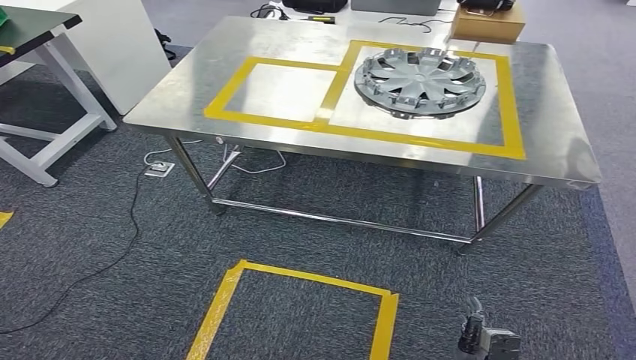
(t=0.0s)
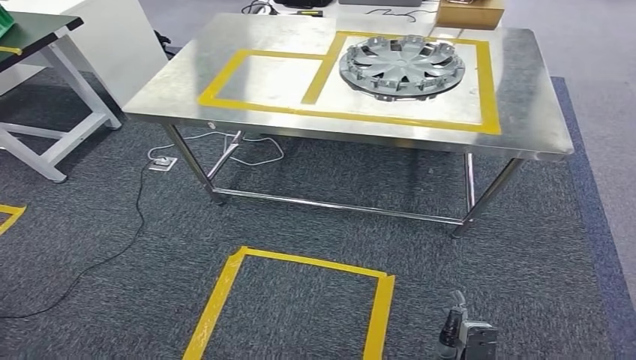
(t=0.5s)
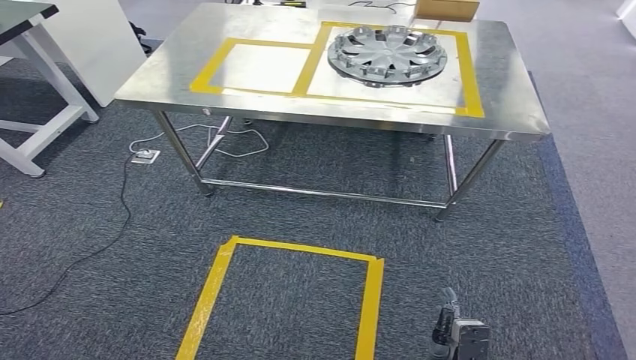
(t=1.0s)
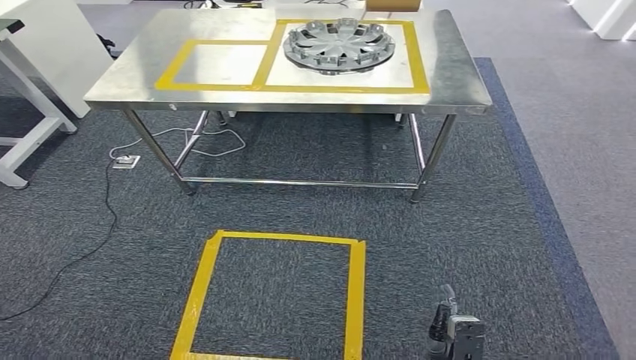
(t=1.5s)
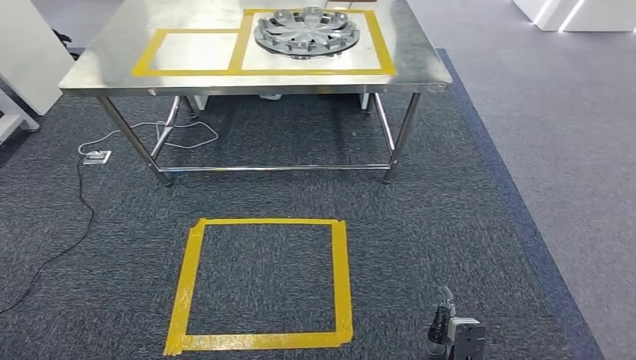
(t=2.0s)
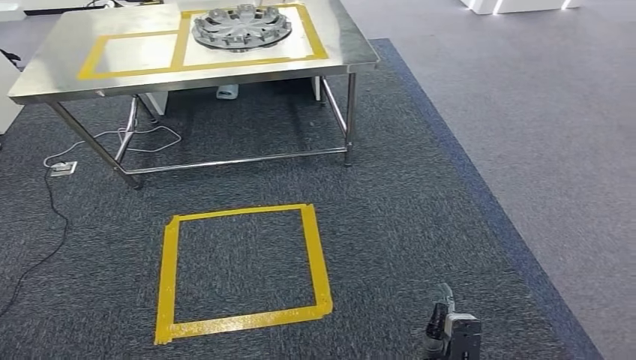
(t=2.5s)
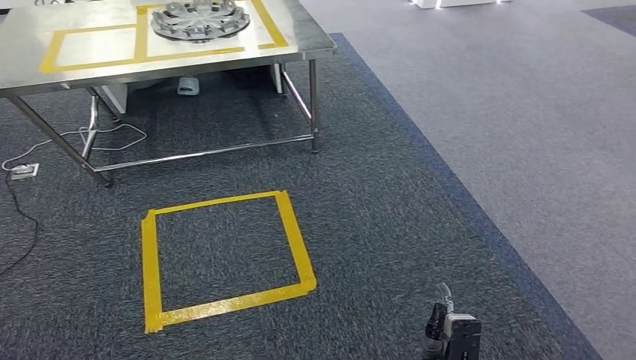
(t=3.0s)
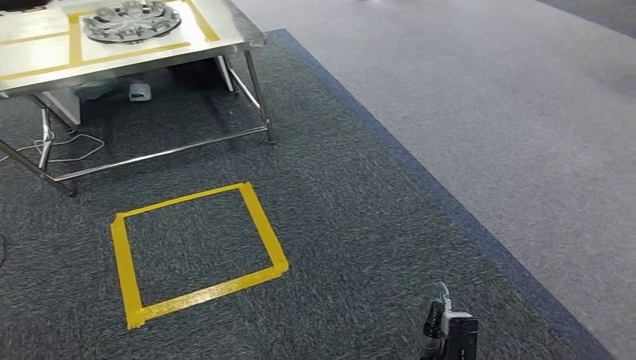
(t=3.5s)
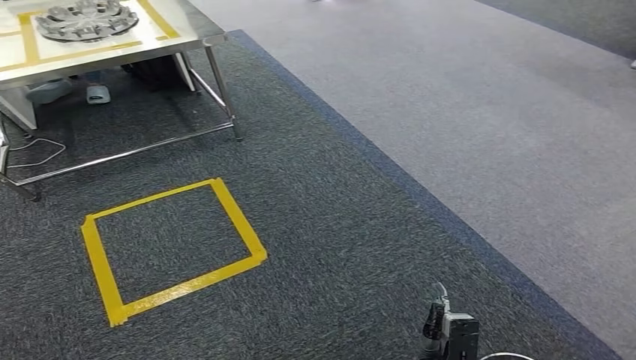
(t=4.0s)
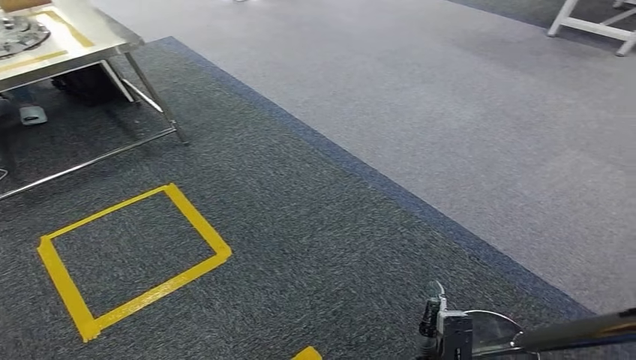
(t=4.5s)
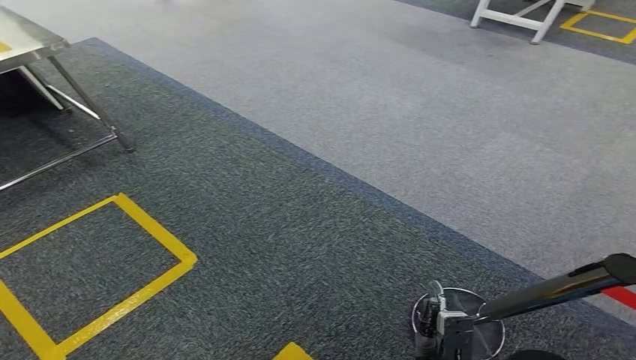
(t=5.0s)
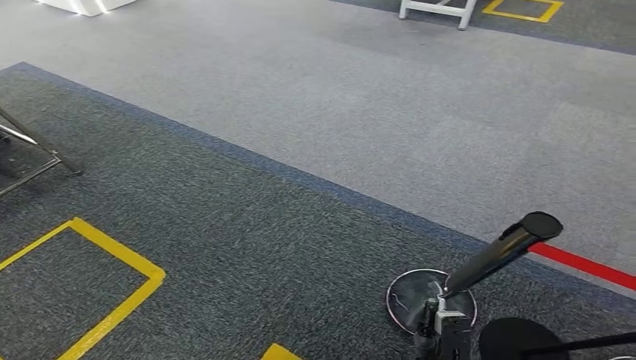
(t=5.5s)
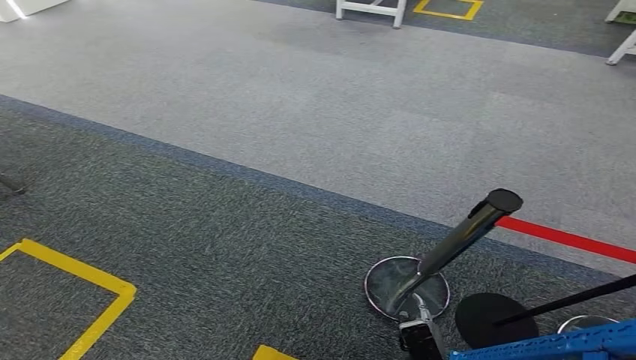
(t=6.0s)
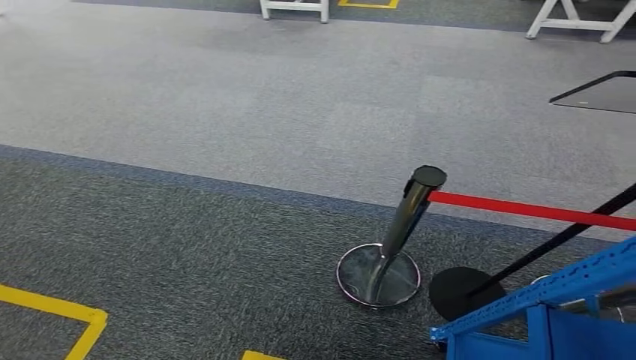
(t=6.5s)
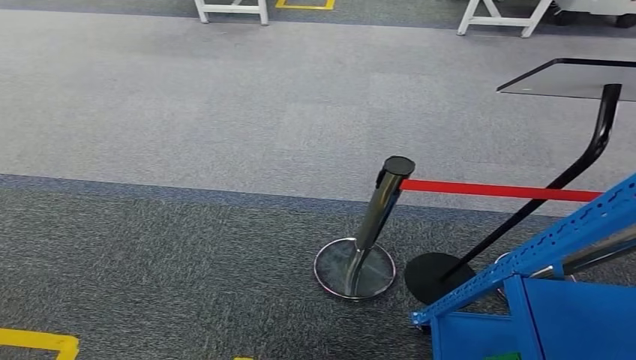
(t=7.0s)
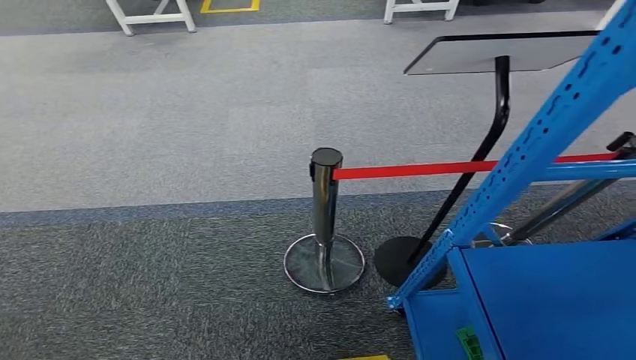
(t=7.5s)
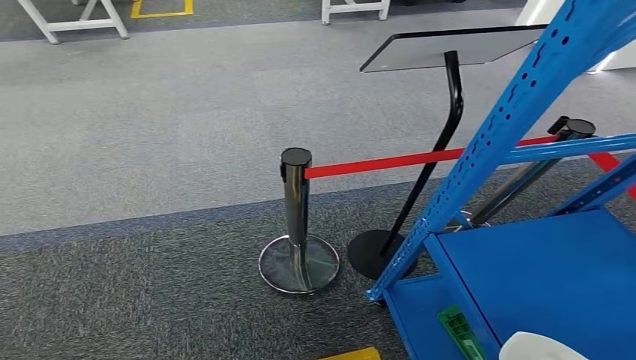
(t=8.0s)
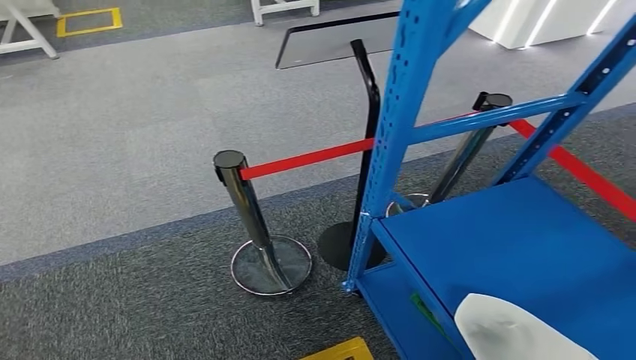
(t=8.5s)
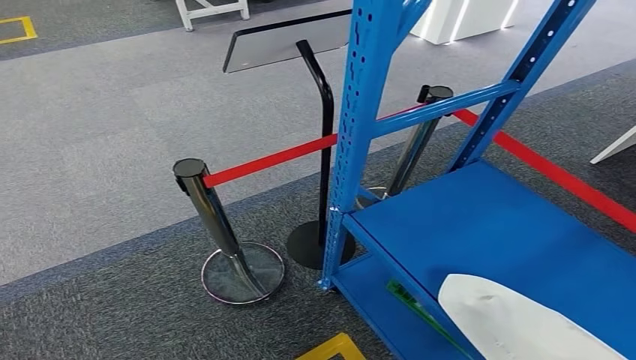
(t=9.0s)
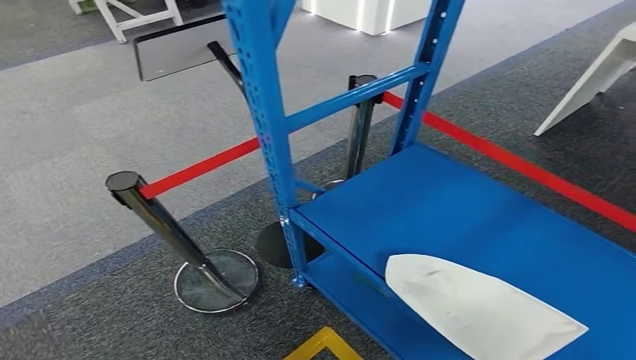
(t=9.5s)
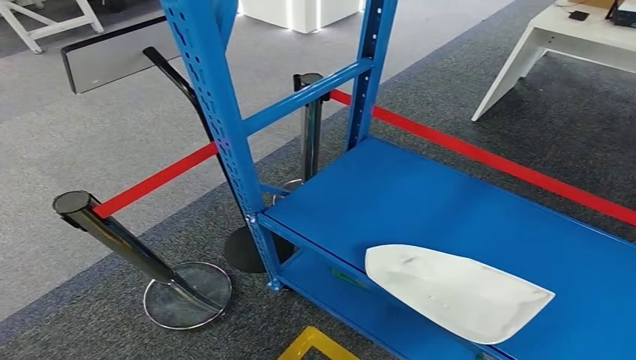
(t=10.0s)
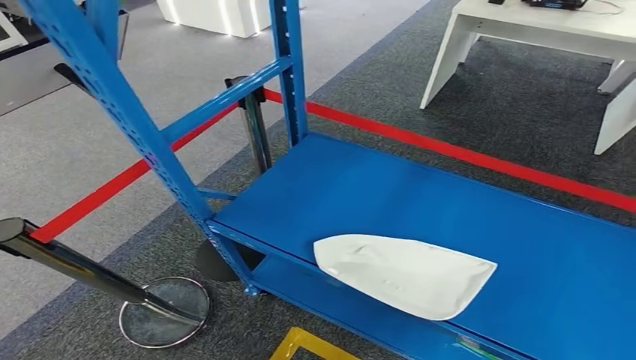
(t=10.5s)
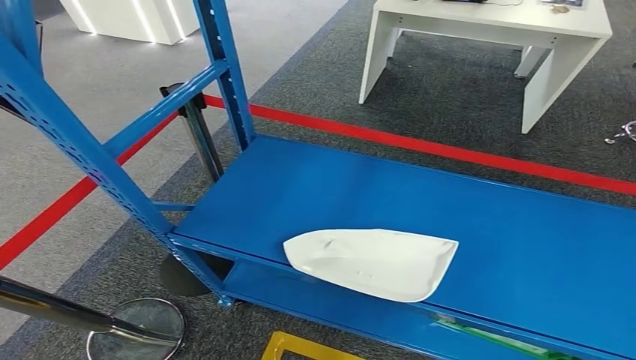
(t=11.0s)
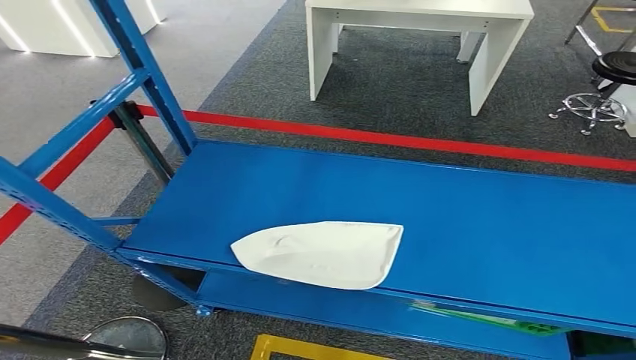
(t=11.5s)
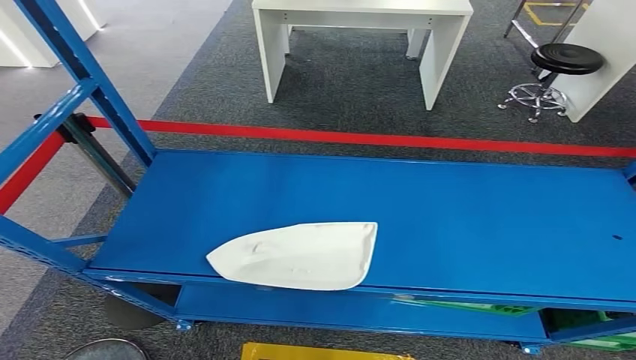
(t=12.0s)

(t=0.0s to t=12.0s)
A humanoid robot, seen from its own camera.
Step, t=0.0s - t=12.0s: Move to the initial position at the workbench.
